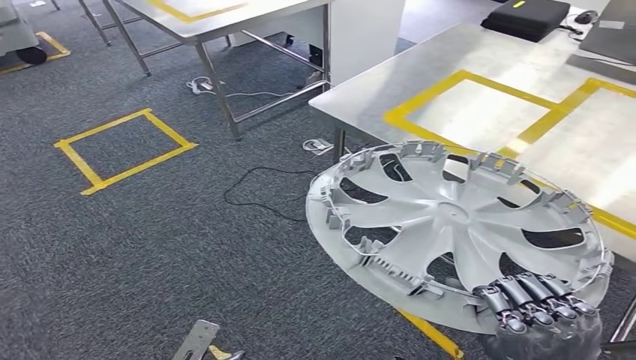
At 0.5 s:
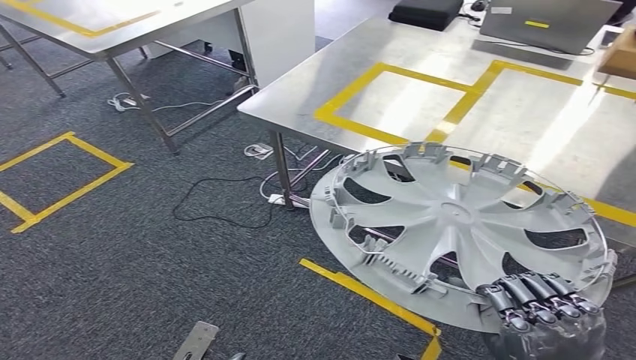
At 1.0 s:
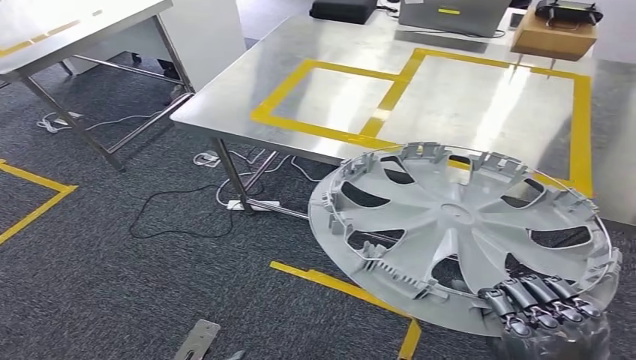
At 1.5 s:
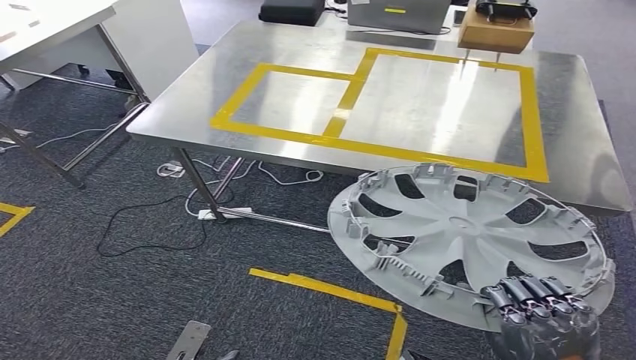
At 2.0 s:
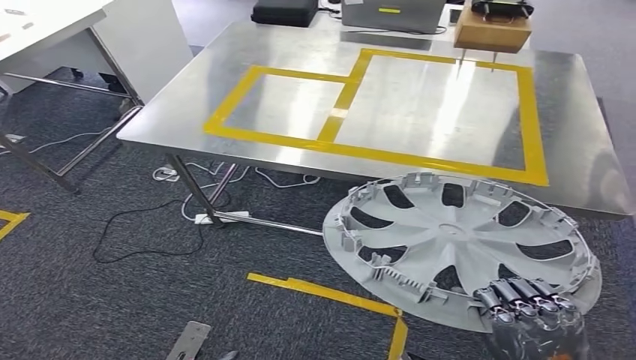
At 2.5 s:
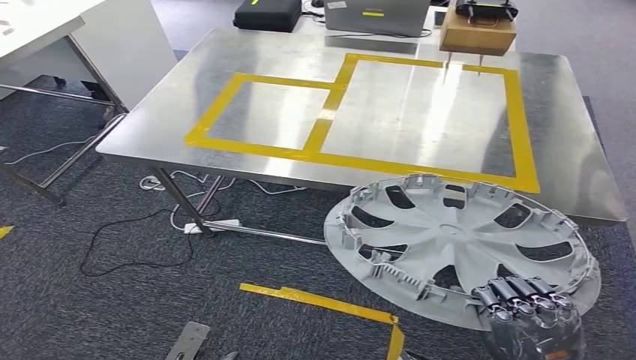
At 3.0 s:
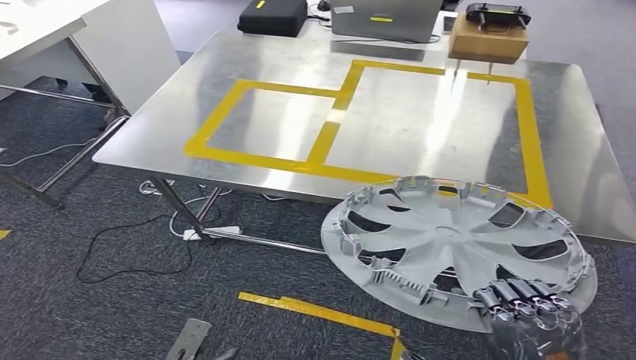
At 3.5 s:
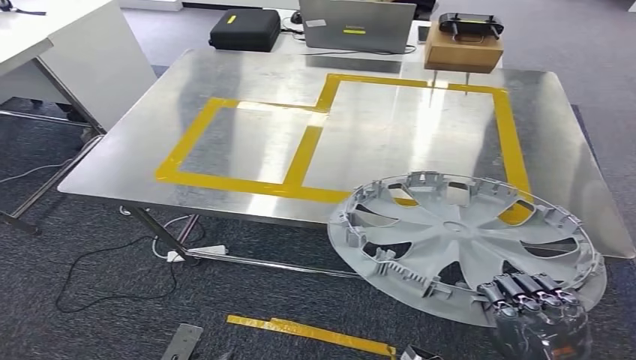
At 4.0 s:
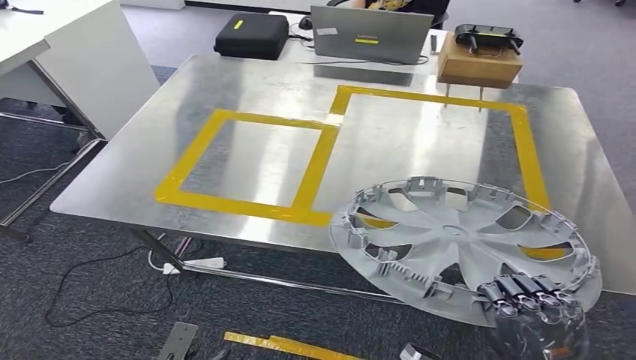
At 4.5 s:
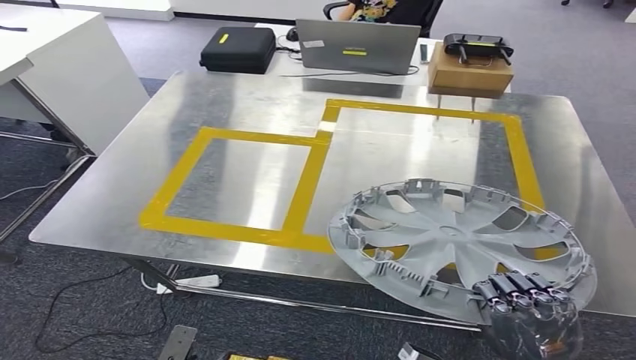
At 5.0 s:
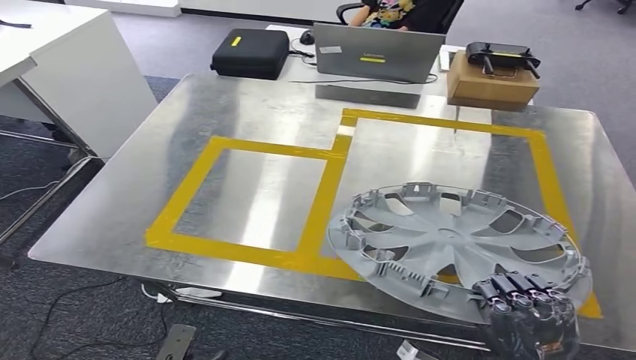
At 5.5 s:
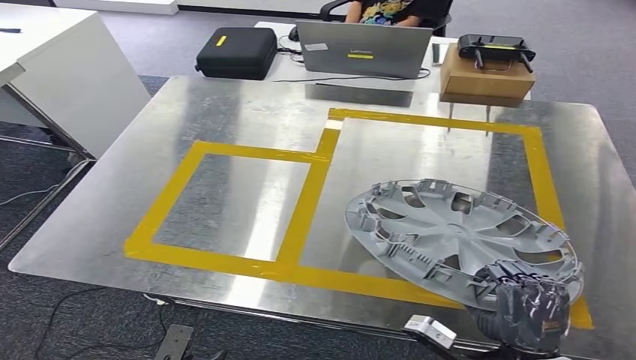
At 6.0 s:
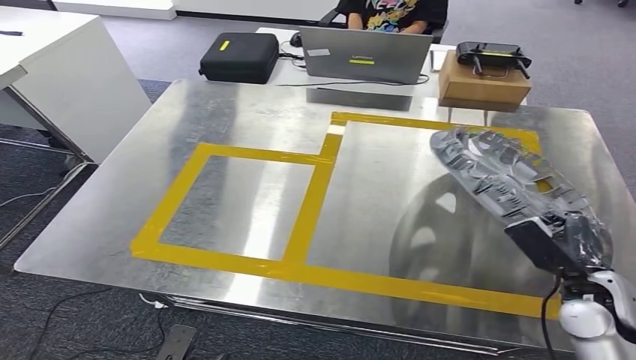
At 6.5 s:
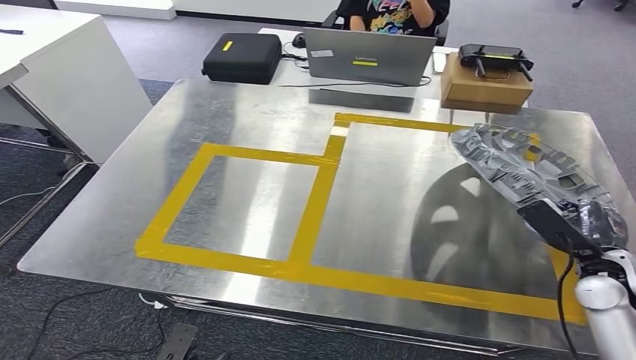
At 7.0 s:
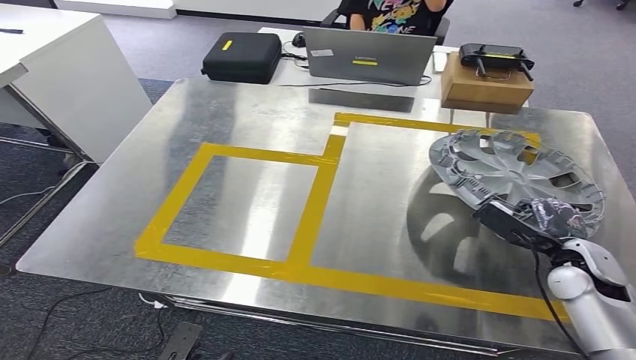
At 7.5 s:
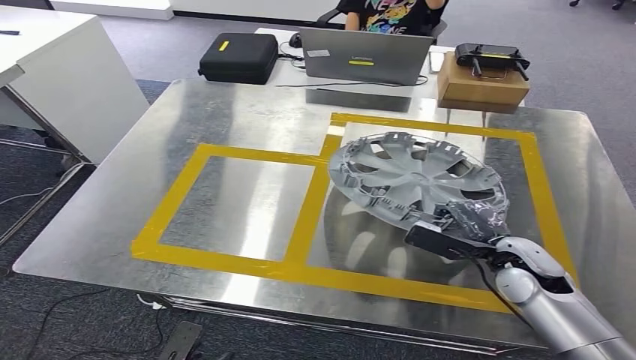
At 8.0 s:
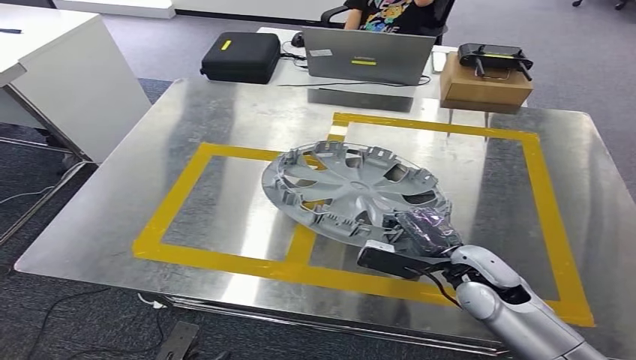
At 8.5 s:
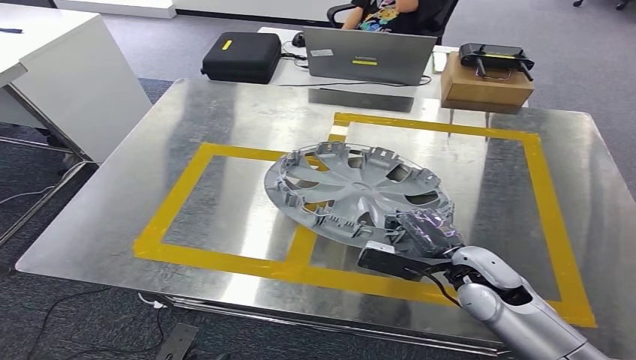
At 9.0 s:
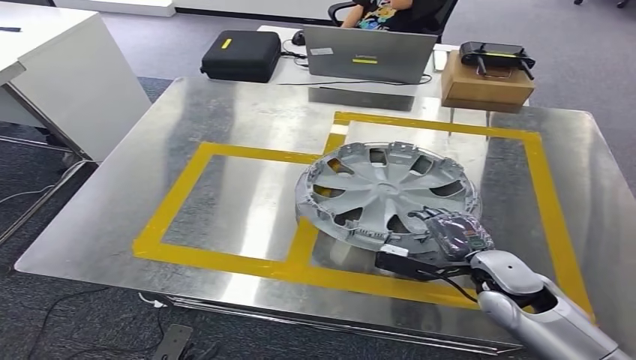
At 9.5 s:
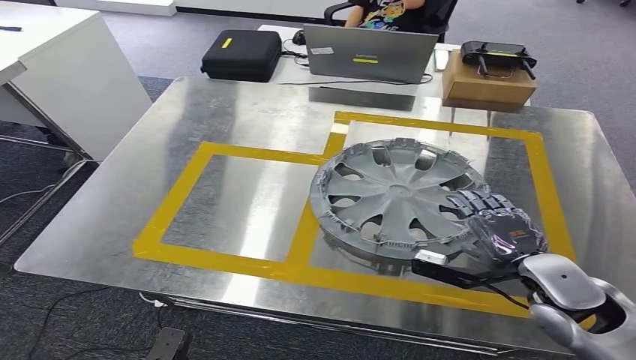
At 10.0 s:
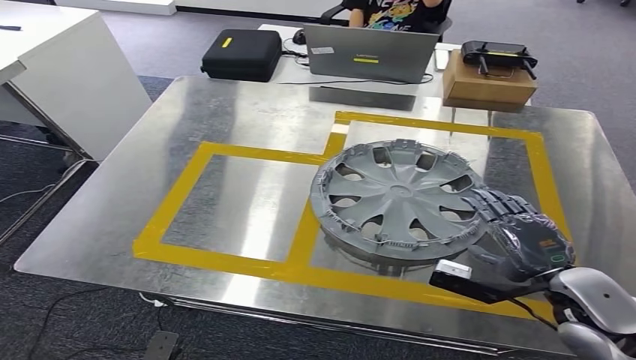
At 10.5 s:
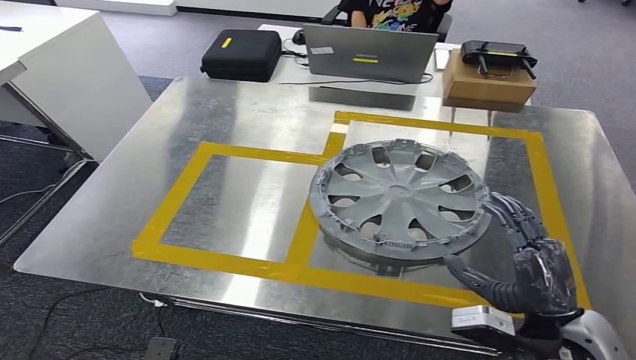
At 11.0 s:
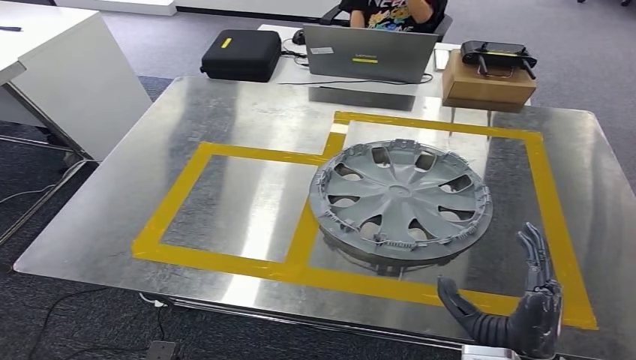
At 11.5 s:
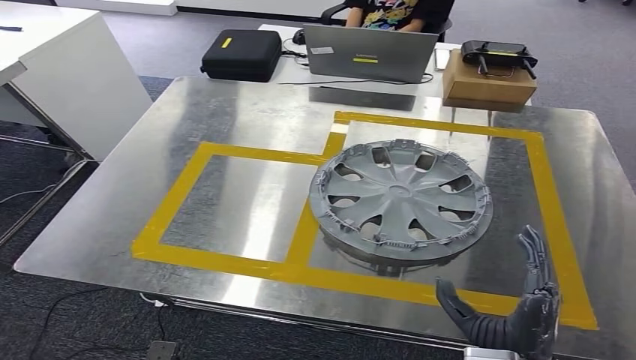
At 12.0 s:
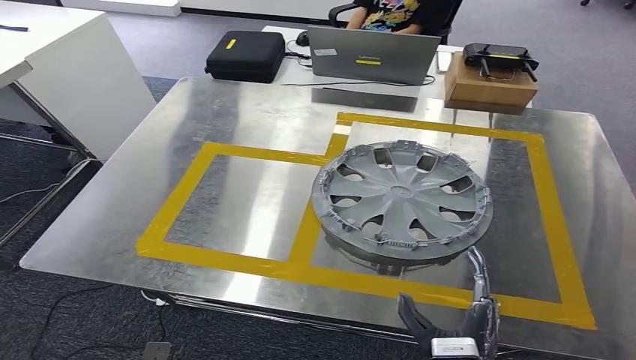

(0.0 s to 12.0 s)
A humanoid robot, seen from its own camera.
Step, 2.0 s - 10.0 s: Insert the small component into the corresponding slot on the workbench.
10.0 s - 12.0 s: The right hand travels to the left, downward and backward by roughly 20 cm.

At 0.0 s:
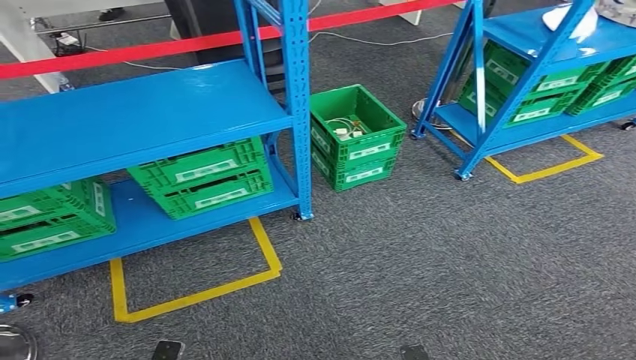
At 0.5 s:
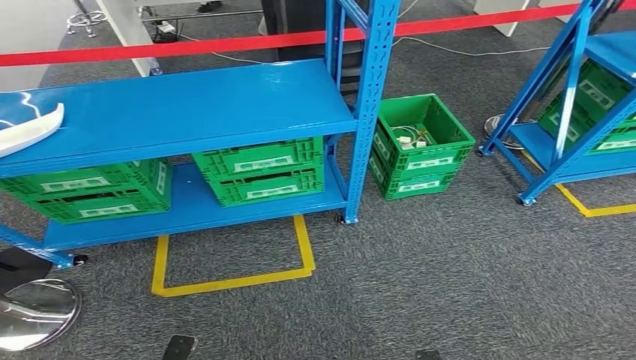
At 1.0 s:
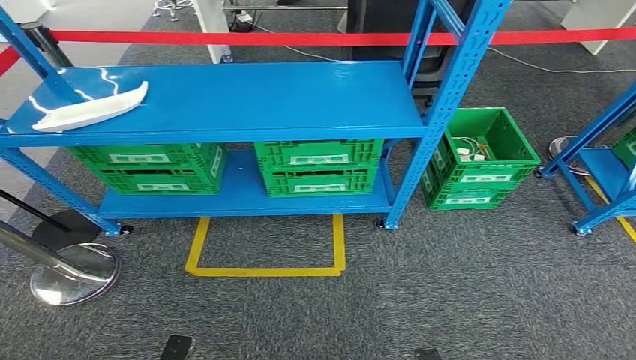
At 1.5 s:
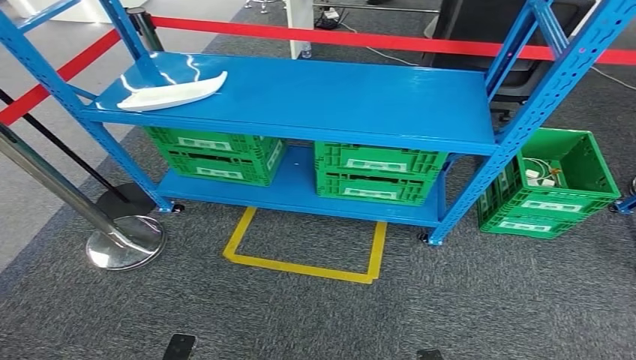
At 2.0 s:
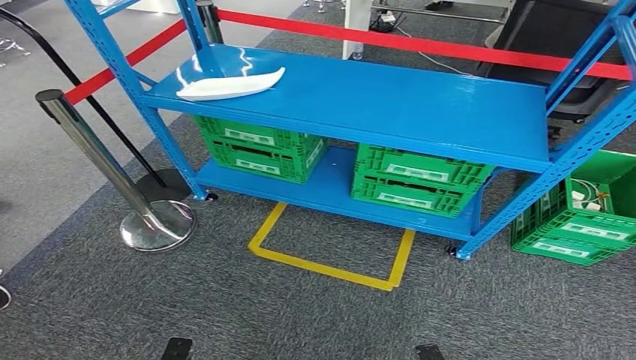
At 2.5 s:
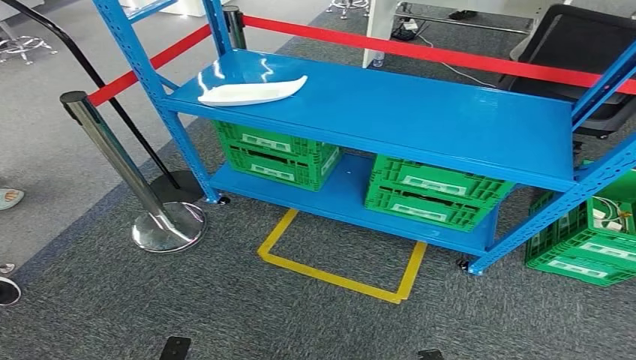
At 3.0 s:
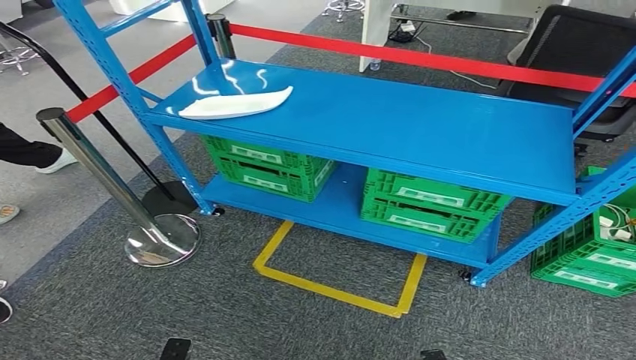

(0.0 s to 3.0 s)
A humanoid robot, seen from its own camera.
Step, 0.0 s - 2.5 s: Return to the initial position at the workbench.
